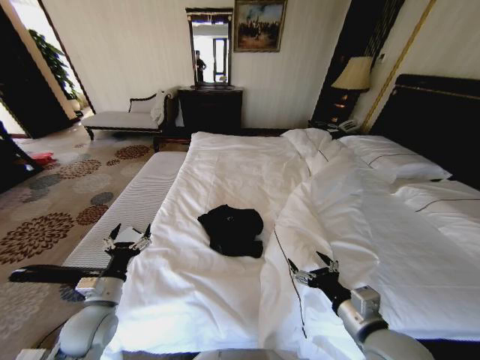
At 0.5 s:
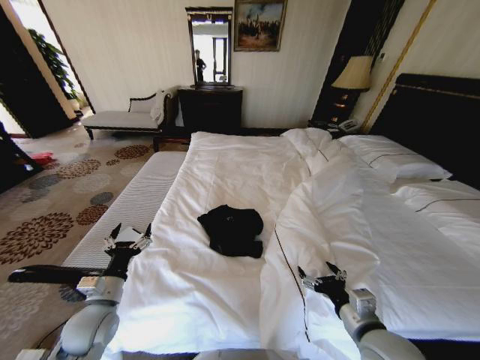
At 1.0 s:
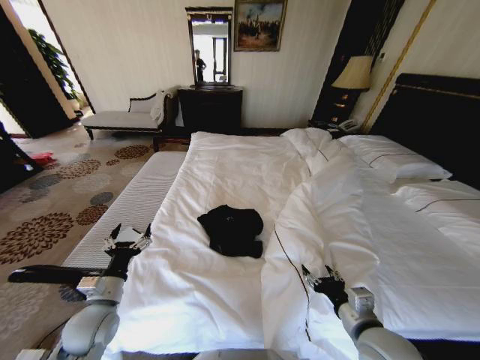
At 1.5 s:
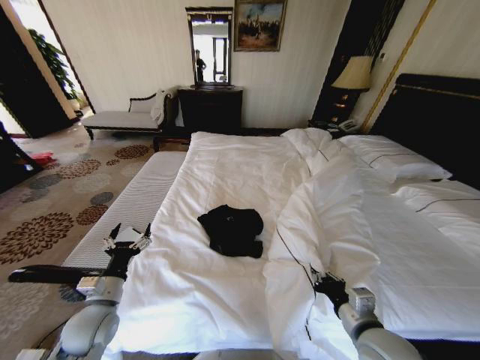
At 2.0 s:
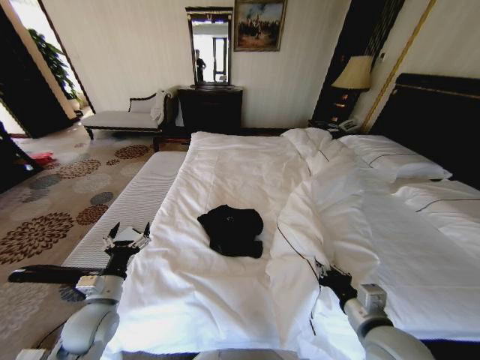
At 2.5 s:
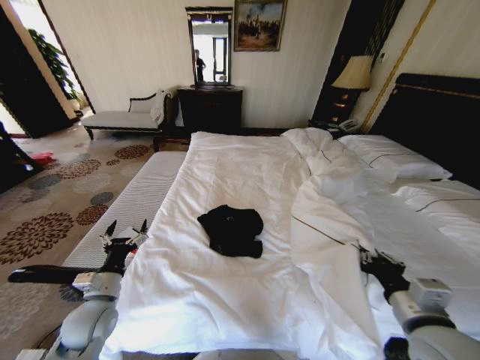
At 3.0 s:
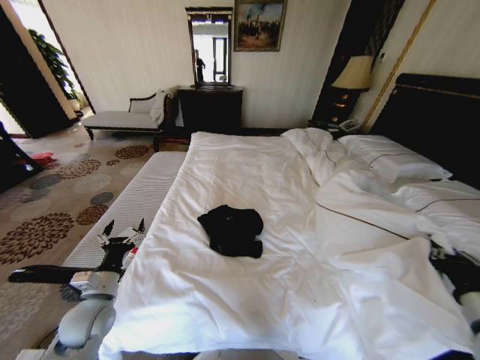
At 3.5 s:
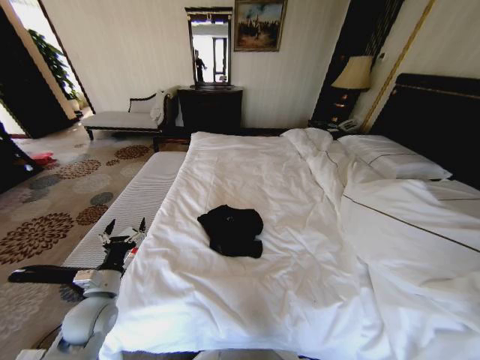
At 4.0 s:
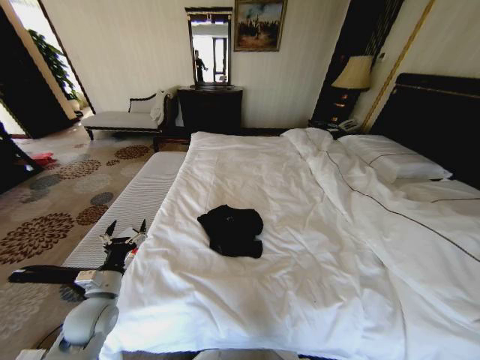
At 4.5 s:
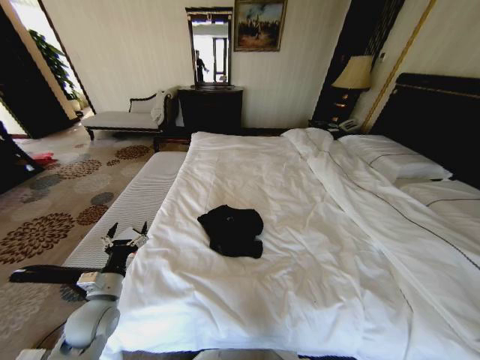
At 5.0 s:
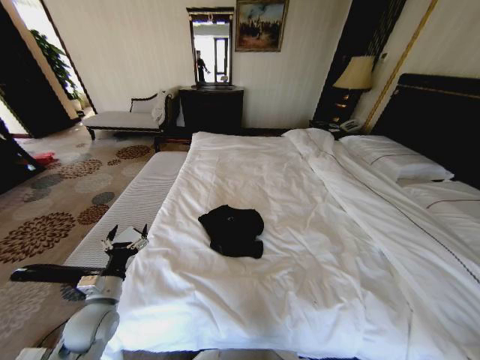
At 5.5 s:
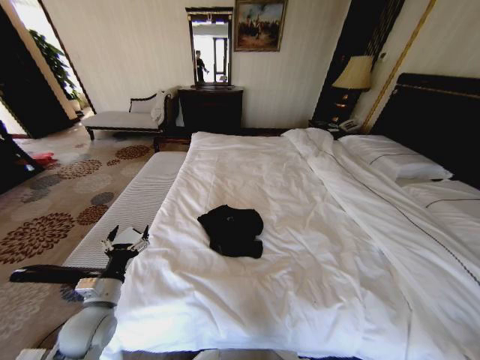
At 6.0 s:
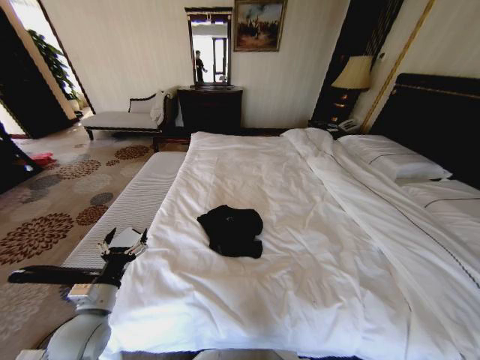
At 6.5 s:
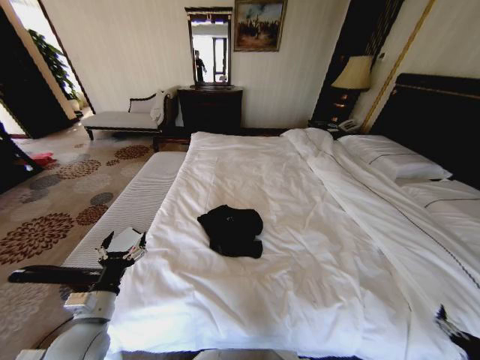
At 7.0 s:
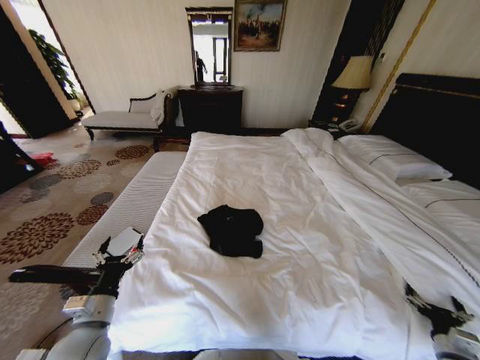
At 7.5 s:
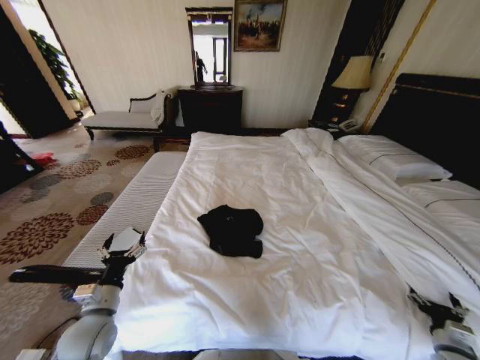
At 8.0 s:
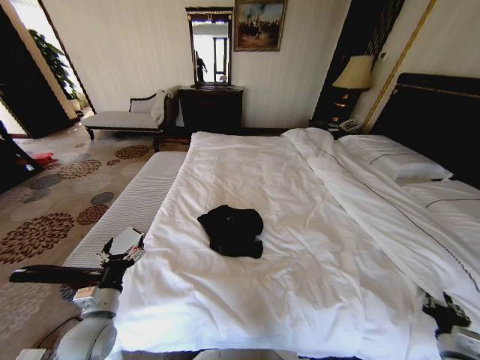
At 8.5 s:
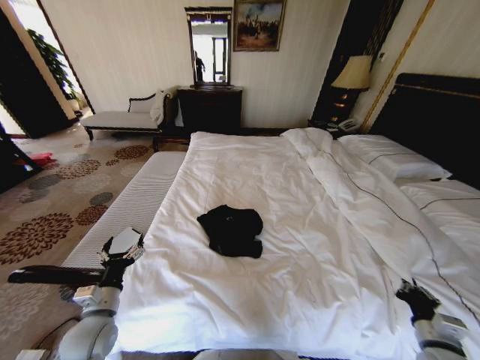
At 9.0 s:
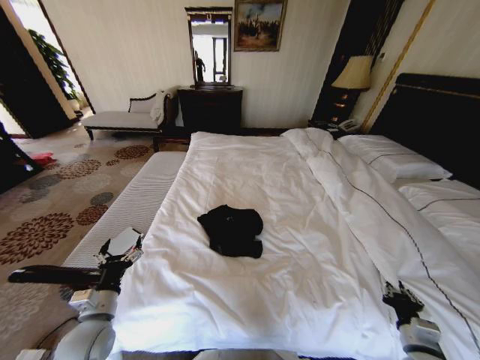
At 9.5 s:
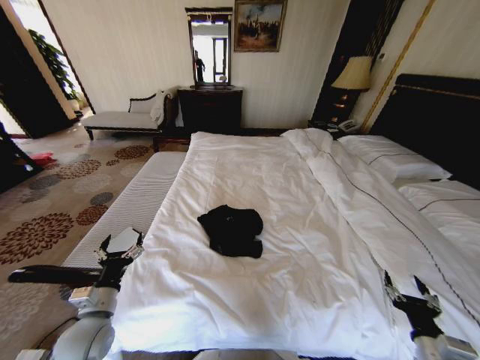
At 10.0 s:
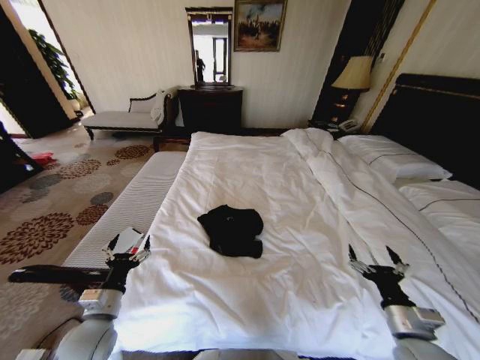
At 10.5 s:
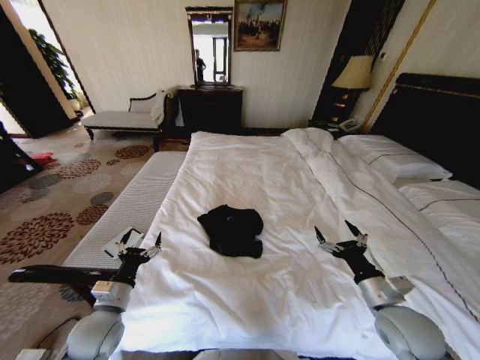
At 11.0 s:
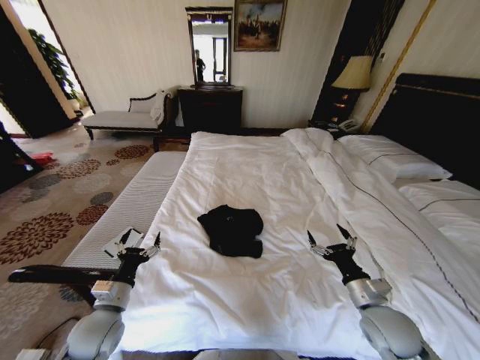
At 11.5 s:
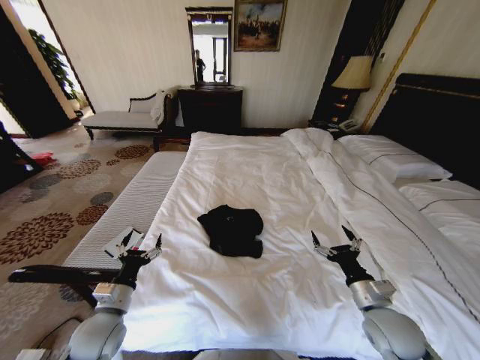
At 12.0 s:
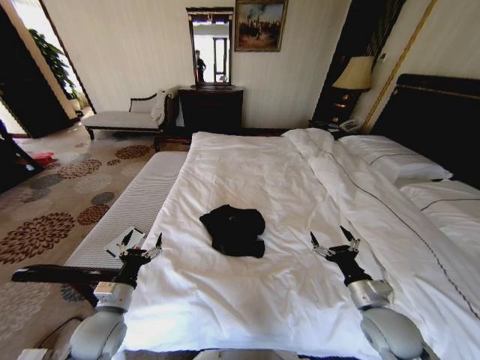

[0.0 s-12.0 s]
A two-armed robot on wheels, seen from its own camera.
Task of the whole recording: Fold the clothes on the bed.
0.0 to 2.0 s: The right gripper closes.
2.0 to 4.0 s: The right gripper travels to the right by approximately 35 cm.
4.0 to 6.0 s: The right gripper goes some 20 cm downward, to the left and backward, and opens.
6.0 to 8.0 s: The right gripper goes approximately 15 cm forward, and closes up.
8.0 to 10.0 s: The right gripper heads to the left and upward, covering approximately 20 cm, and opens its fingers.
10.0 to 12.0 s: The right gripper moves forward, about 5 cm.

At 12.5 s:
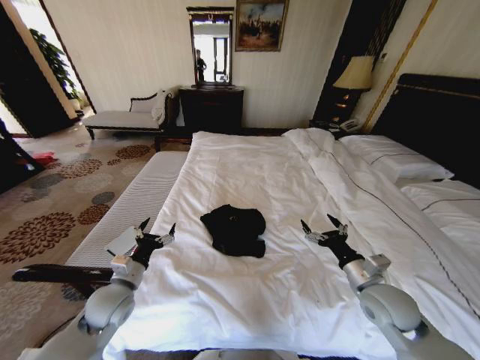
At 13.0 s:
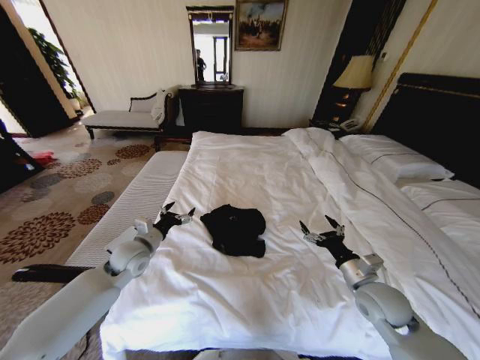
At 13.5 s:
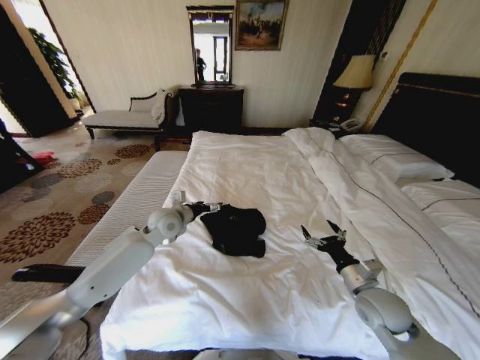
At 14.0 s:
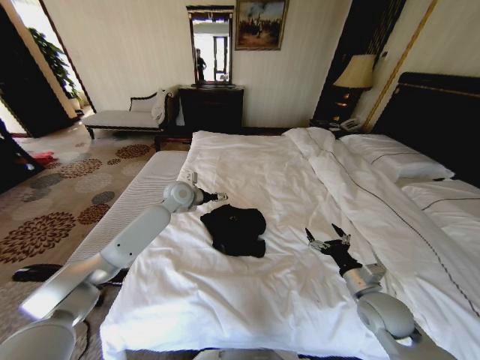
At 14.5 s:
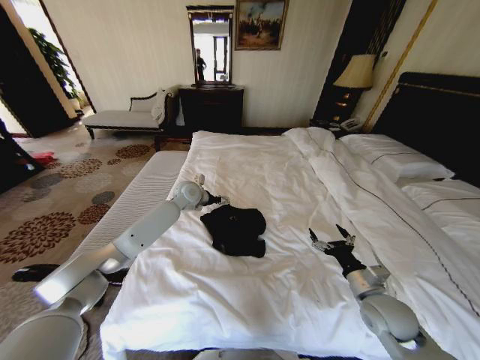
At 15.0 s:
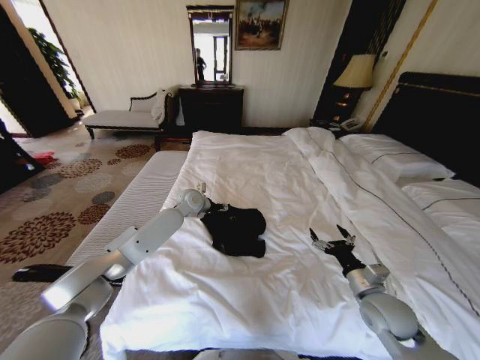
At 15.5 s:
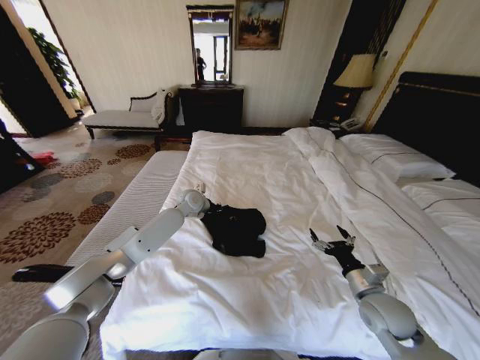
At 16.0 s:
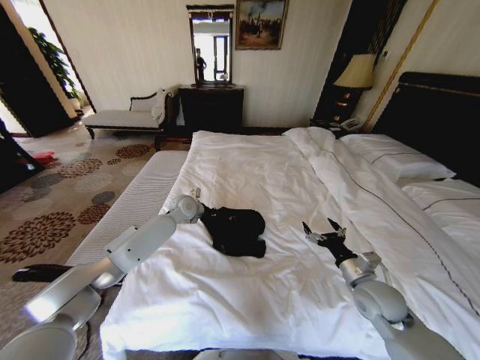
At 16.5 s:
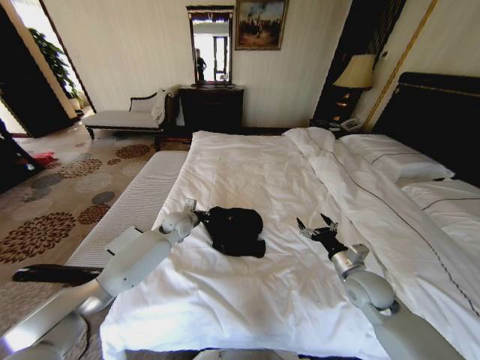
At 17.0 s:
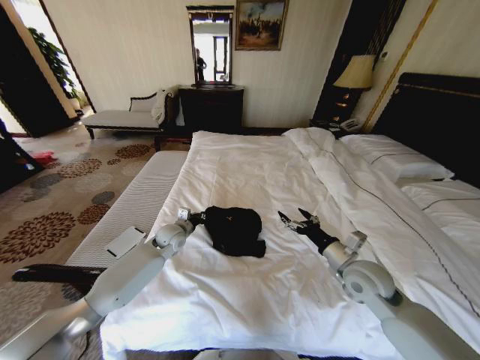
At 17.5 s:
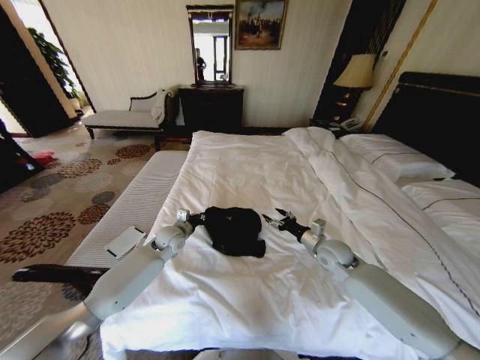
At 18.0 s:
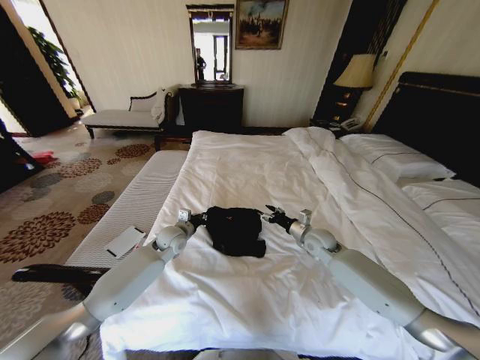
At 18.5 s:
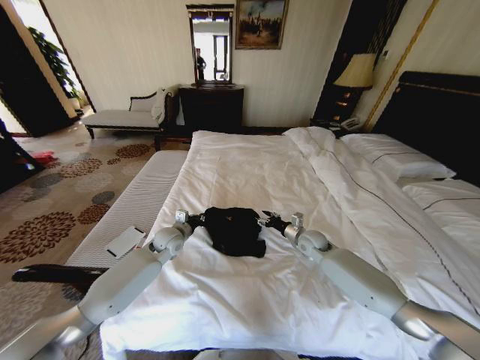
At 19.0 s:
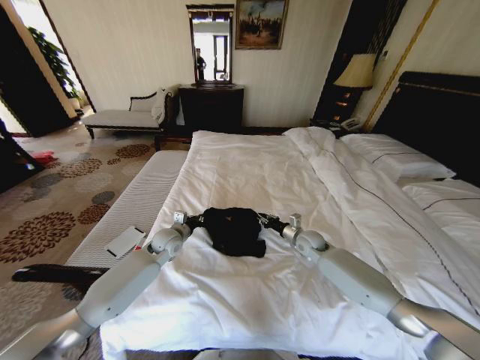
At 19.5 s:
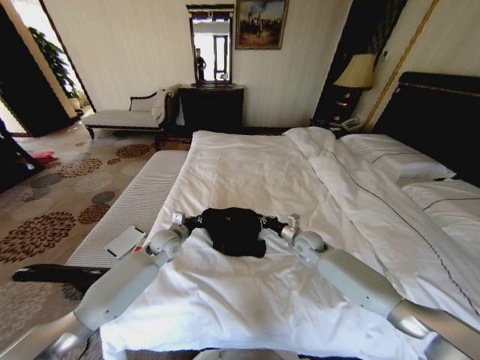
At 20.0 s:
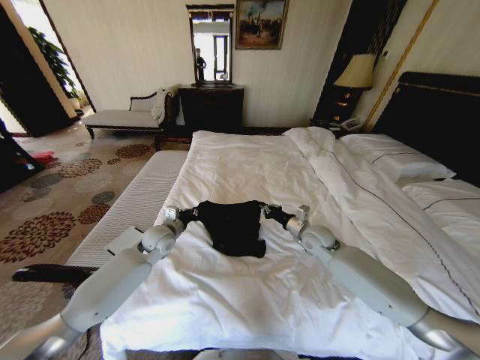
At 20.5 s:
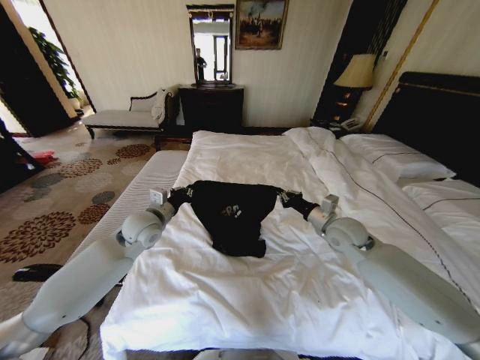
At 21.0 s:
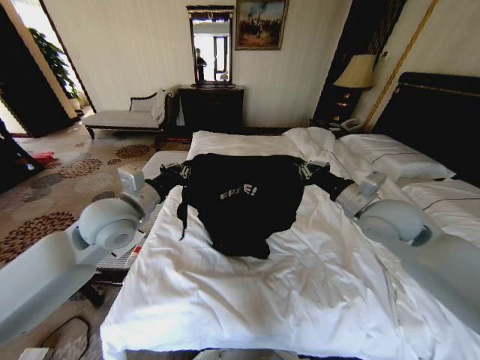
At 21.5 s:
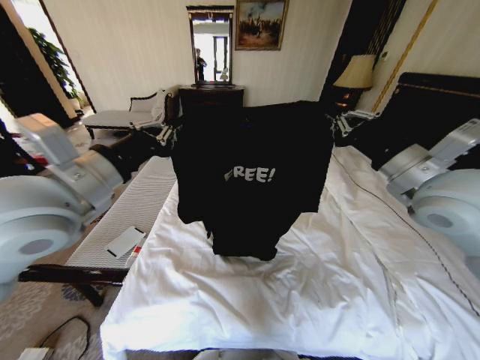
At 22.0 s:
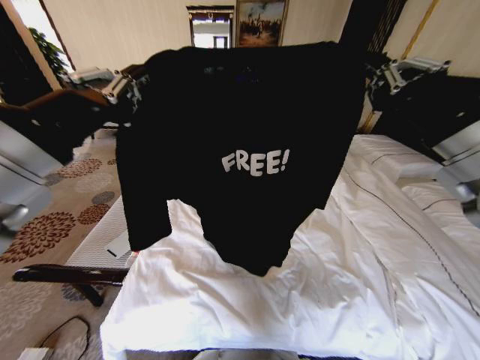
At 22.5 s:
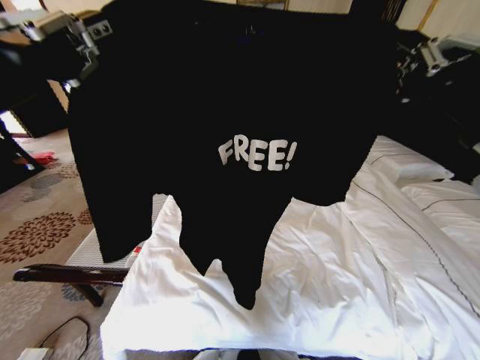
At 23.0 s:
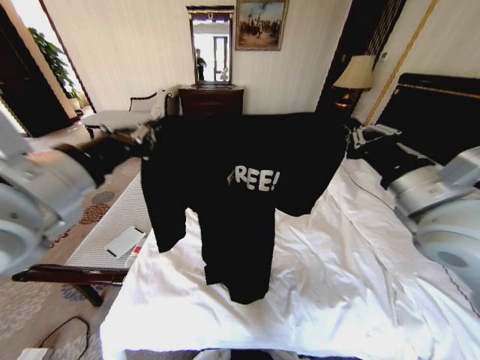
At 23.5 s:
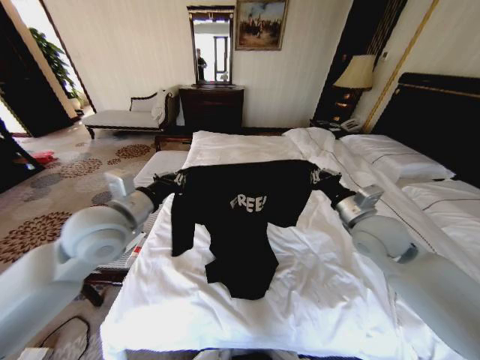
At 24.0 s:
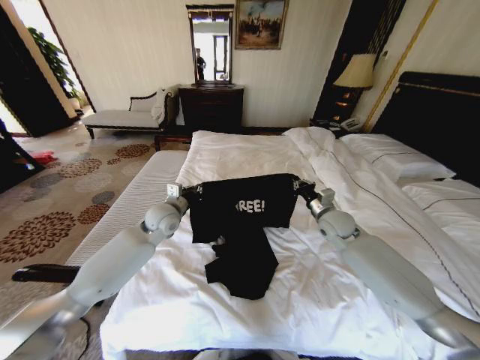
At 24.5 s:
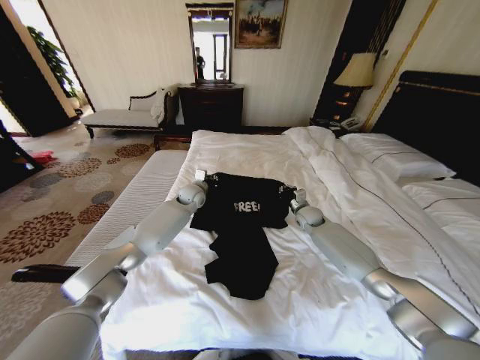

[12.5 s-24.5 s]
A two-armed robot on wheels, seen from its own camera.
Task of the whole recording: Fold the clothes on the bed.
12.5 to 14.5 s: The left gripper is displaced forward and to the right by about 35 cm.
14.5 to 16.5 s: The right gripper travels forward by some 5 cm, while the left gripper shifts about 10 cm downward and backward, and closes.
16.5 to 18.5 s: The right gripper is displaced forward by about 15 cm, while the left gripper travels backward by roughly 5 cm.
18.5 to 20.5 s: The right gripper shifts some 15 cm upward and backward, and closes. Meanwhile the left gripper is displaced upward by some 10 cm.
20.5 to 22.5 s: The two grippers go about 35 cm upward and backward.
22.5 to 24.5 s: The right gripper is displaced downward and forward by some 50 cm. The left gripper shifts approximately 50 cm forward and downward.

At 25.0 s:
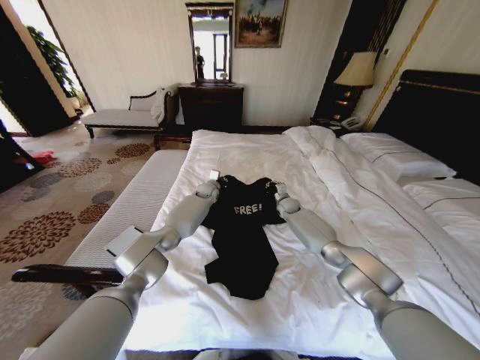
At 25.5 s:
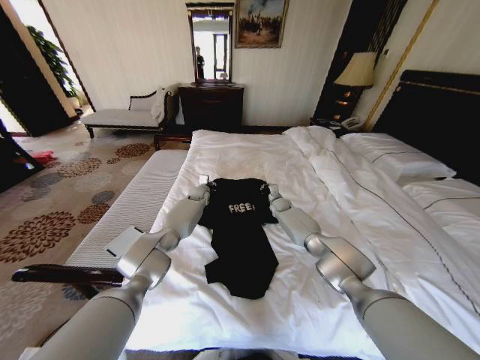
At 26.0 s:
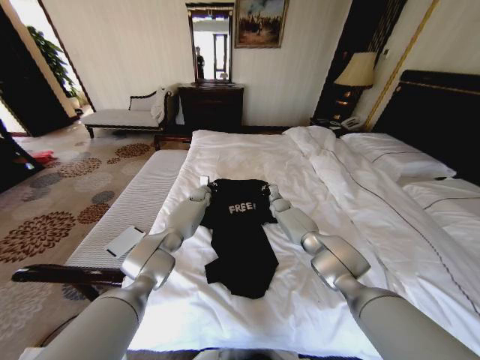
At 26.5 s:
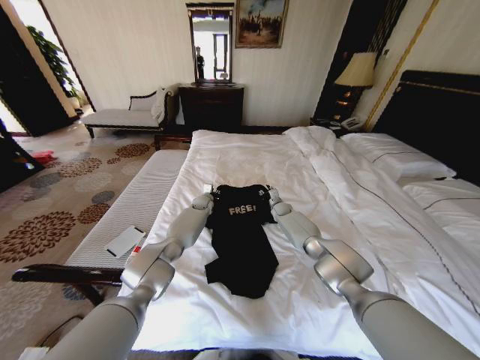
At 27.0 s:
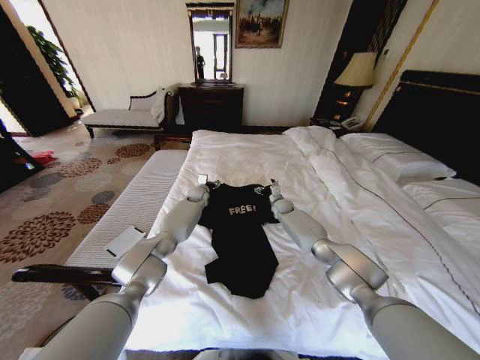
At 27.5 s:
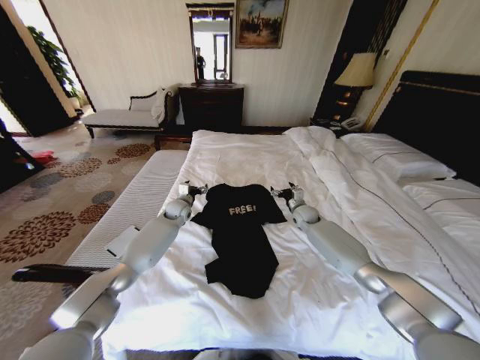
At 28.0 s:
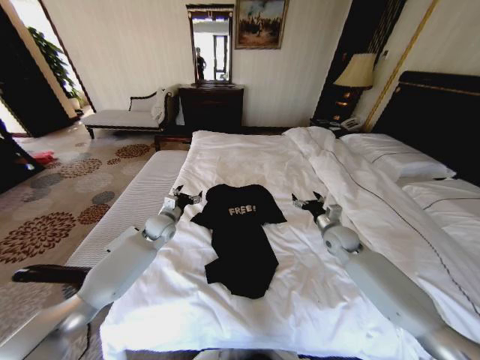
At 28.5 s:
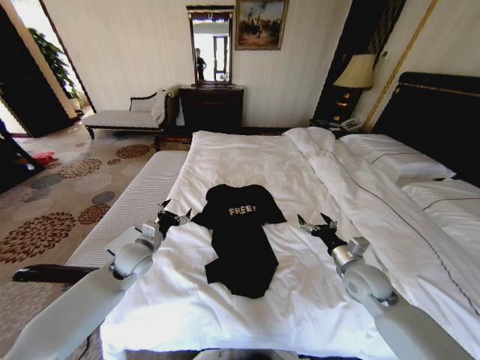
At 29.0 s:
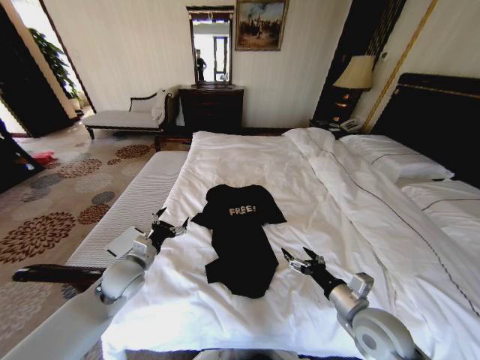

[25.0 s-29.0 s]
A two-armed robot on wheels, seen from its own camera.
Task of the whole recording: Fold the clothes on the bed.
25.0 to 27.0 s: The right gripper opens. The left gripper ends up about 5 cm from where it was, and opens its fingers.
27.0 to 29.0 s: The left gripper moves backward and to the left, approximately 40 cm; the right gripper is displaced backward by some 50 cm.
